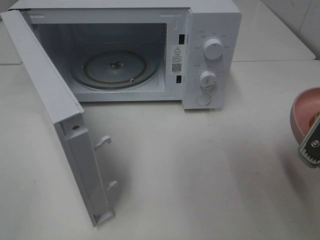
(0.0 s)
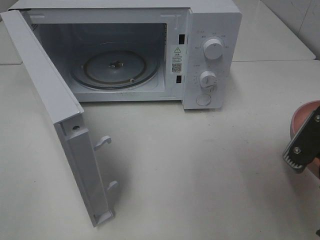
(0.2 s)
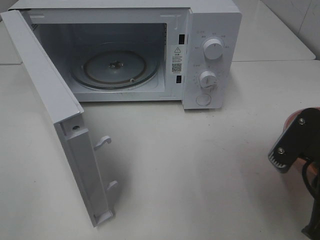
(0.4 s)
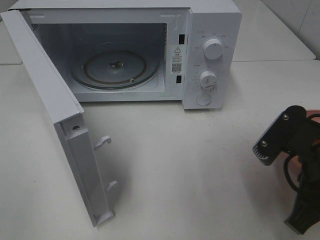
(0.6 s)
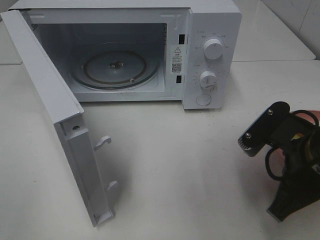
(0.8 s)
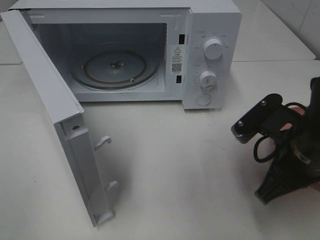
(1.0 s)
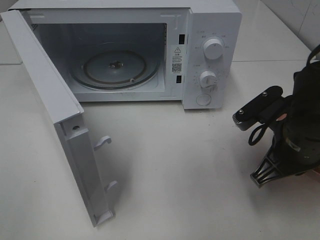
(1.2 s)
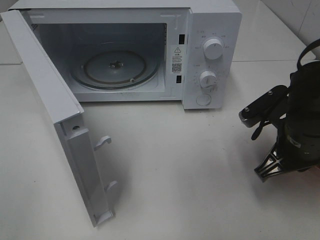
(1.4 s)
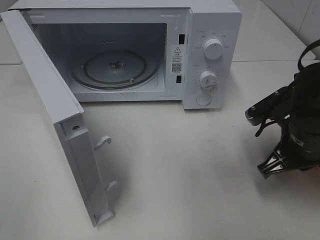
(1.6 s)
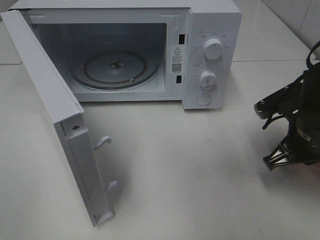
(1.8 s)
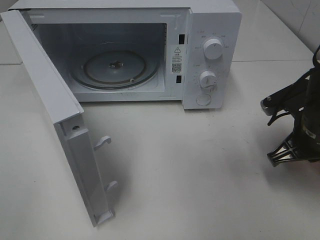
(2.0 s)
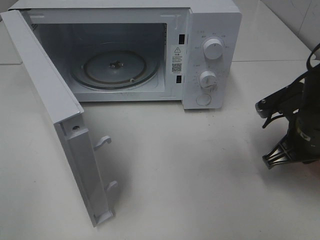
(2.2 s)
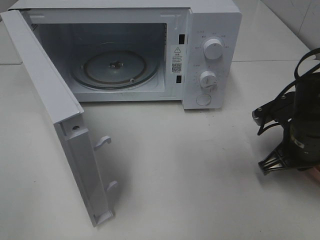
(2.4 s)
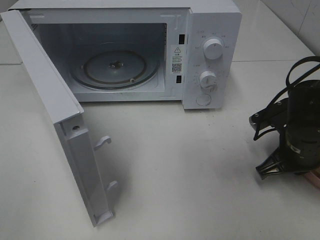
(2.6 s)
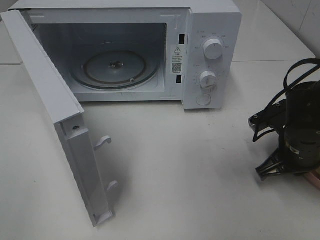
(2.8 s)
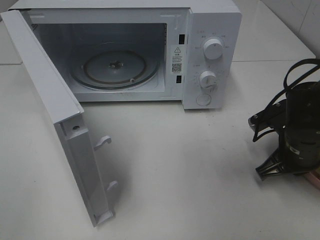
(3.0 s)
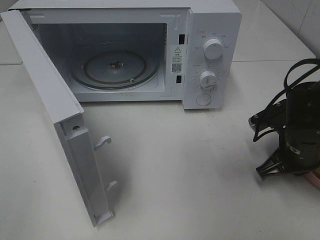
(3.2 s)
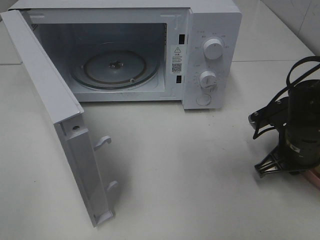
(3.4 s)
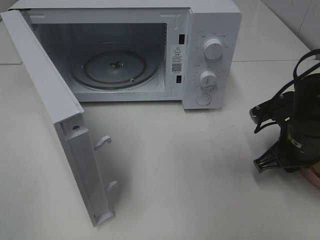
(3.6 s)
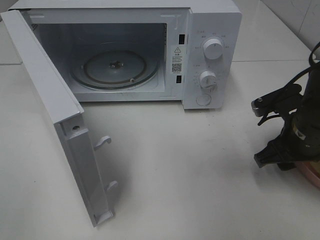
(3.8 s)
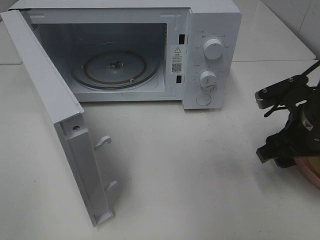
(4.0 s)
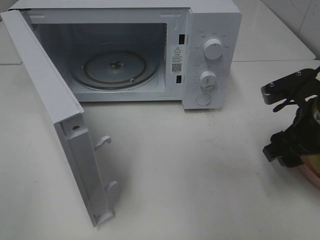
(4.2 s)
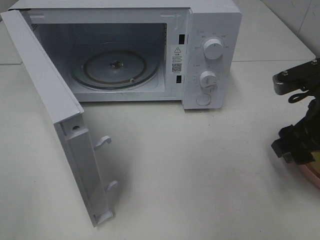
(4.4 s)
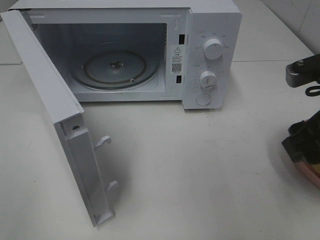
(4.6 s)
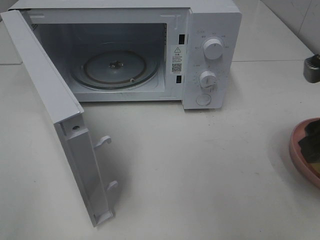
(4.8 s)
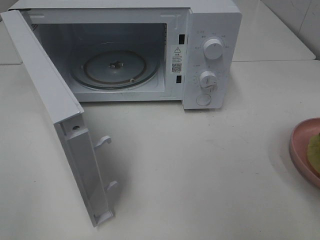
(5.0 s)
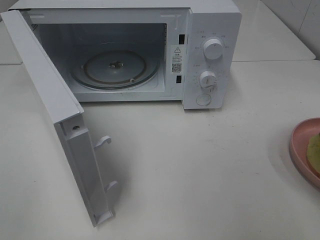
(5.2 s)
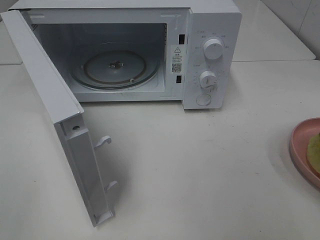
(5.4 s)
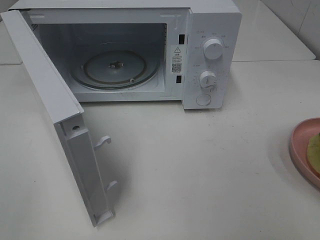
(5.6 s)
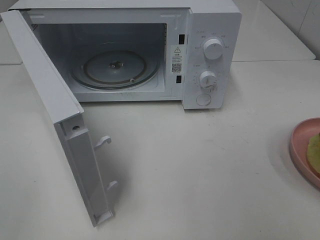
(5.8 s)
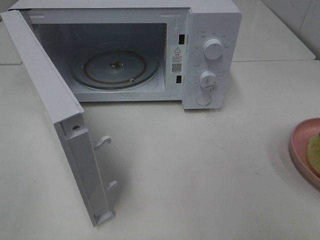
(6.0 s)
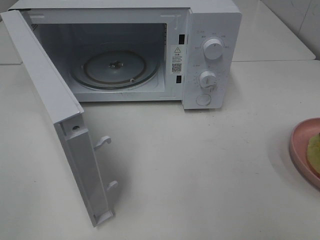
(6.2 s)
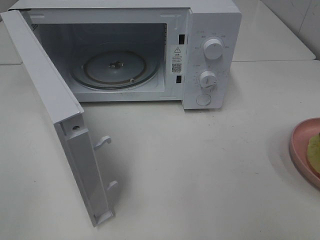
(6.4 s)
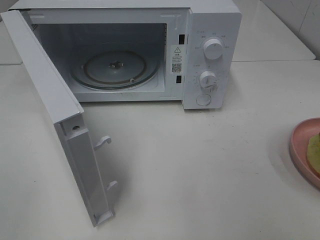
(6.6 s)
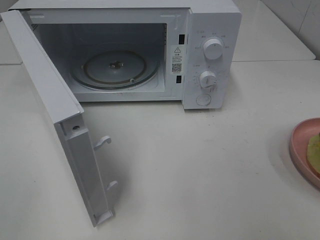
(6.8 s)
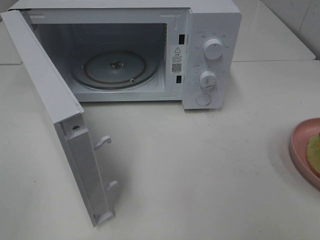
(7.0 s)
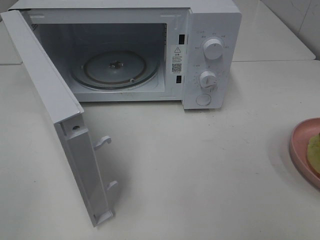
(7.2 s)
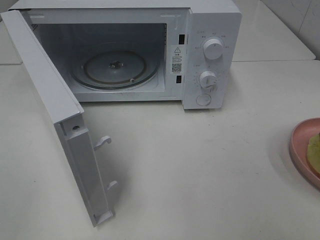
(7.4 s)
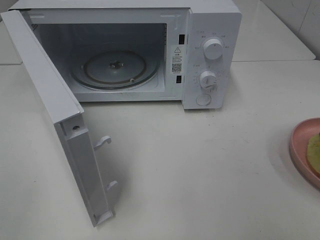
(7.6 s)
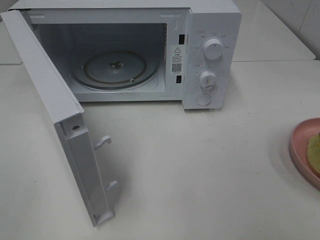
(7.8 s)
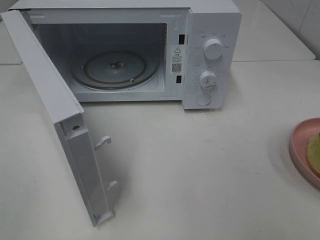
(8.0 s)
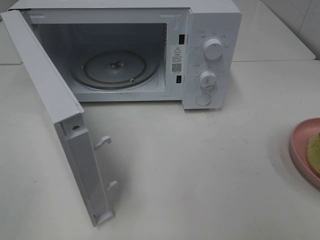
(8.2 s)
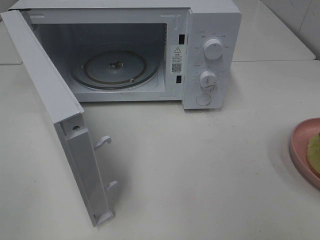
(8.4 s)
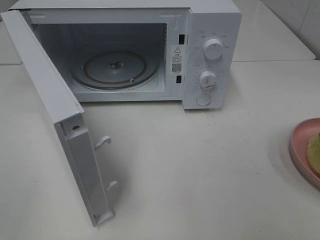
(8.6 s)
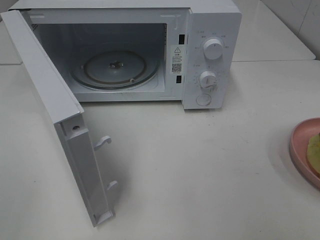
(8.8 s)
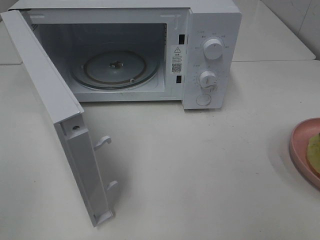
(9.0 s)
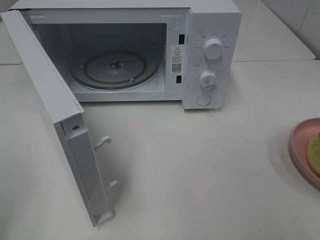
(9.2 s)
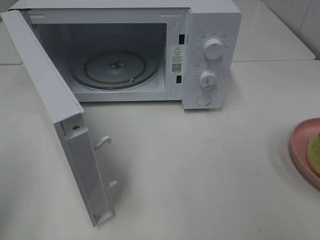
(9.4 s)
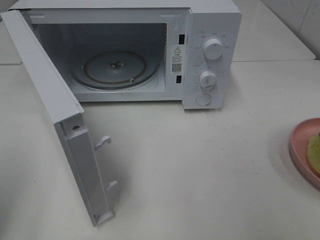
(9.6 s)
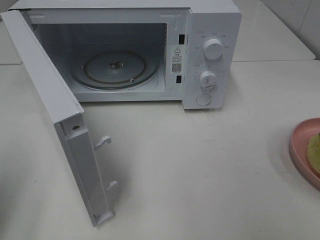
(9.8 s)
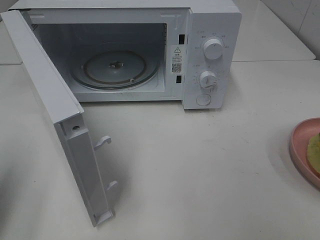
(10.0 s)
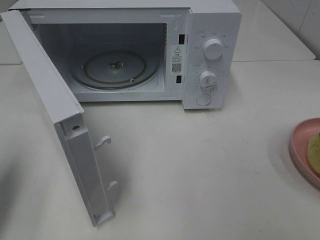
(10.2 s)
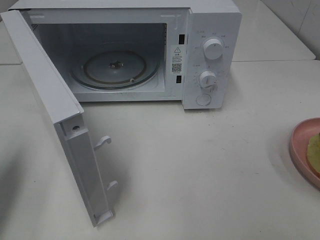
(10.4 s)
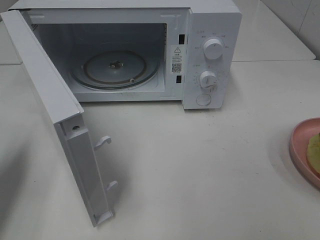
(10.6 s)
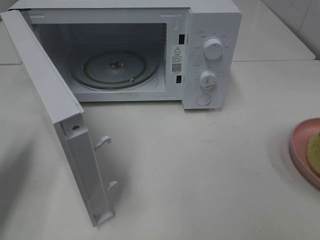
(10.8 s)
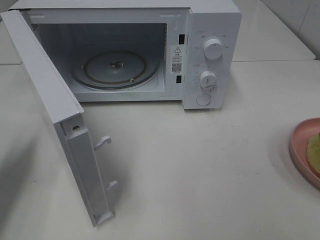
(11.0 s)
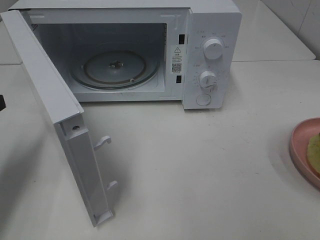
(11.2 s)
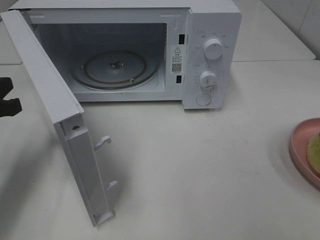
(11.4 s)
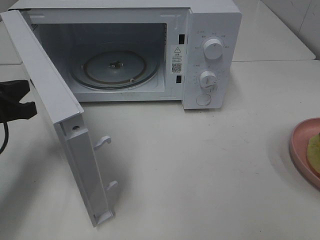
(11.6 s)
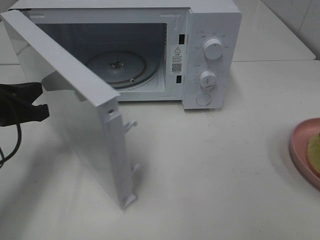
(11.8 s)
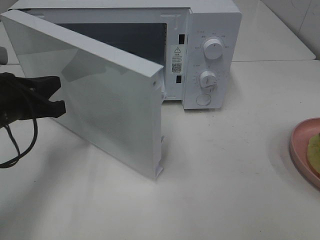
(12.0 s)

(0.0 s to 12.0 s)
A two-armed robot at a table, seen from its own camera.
Task of the whole recording: Heat Sandwich.
Step, 0.0 s - 4.6 s: Right hand: place the plate on the table.
0.0 s - 1.6 s: The right gripper heads forward and downward, covering roughly 15 cm.
1.6 s - 3.0 s: The grippers move only a little.
3.0 s - 4.4 s: The right gripper goes some 10 cm upward, and opens its fingers.
4.4 s - 6.0 s: The right gripper shifts about 20 cm backward and upward.
9.0 s - 10.4 s: The left gripper travels forward and downward by approximately 15 cm, and closes up.
10.4 s - 12.0 s: The left gripper travels to the right, forward and downward by roughly 15 cm.

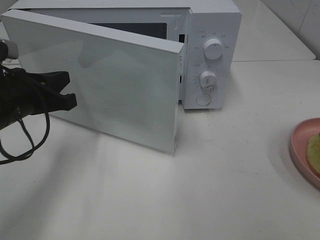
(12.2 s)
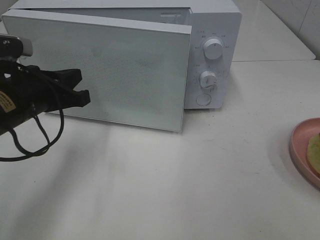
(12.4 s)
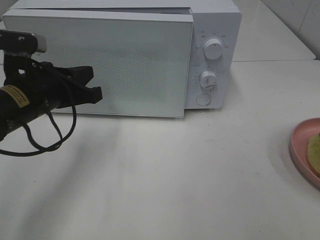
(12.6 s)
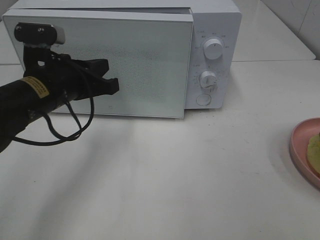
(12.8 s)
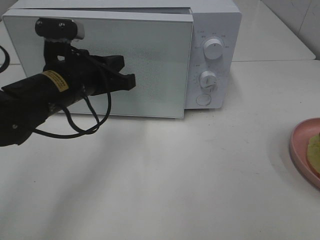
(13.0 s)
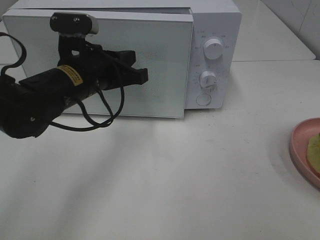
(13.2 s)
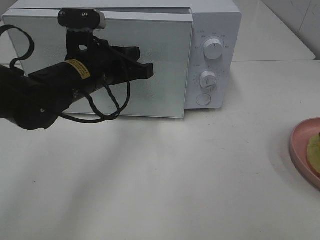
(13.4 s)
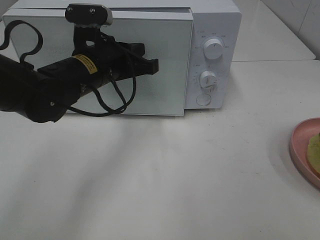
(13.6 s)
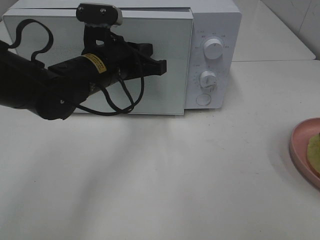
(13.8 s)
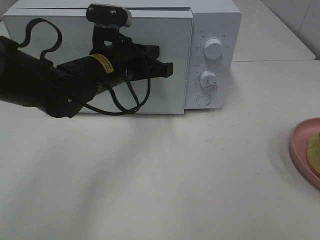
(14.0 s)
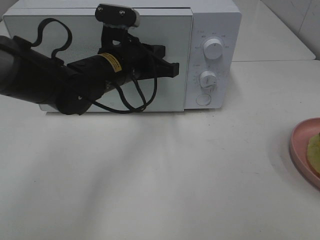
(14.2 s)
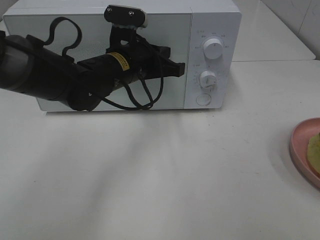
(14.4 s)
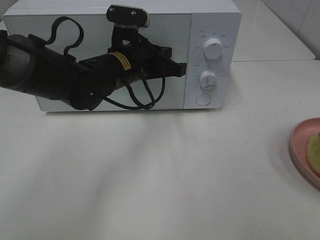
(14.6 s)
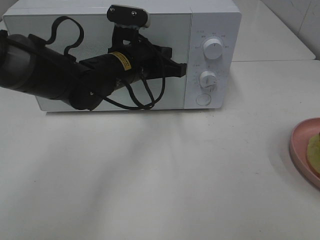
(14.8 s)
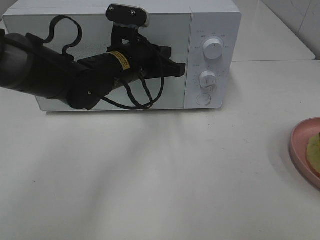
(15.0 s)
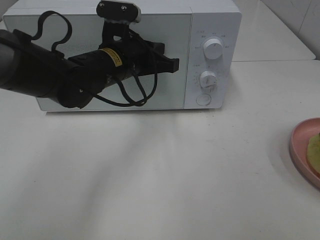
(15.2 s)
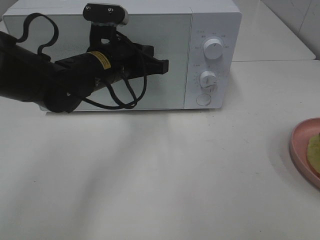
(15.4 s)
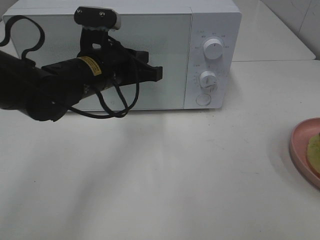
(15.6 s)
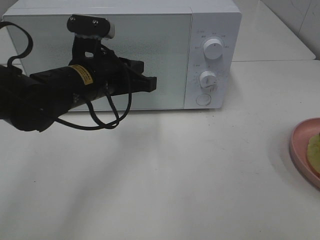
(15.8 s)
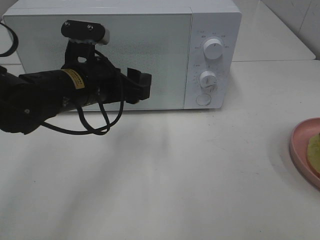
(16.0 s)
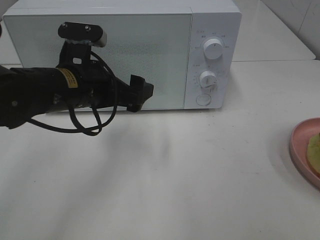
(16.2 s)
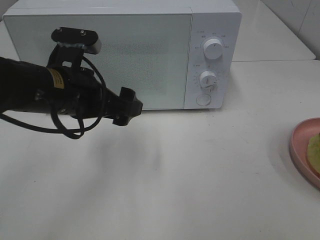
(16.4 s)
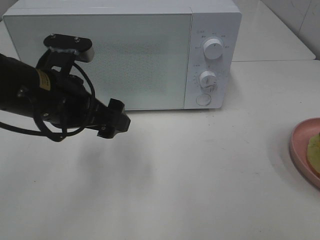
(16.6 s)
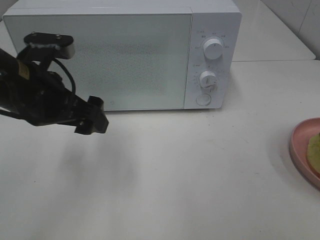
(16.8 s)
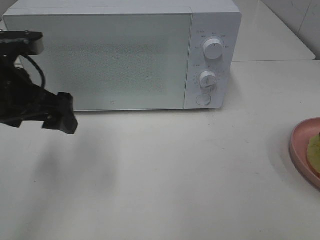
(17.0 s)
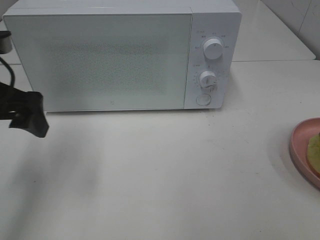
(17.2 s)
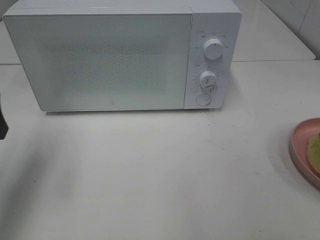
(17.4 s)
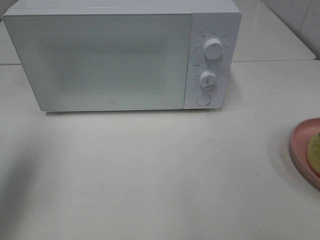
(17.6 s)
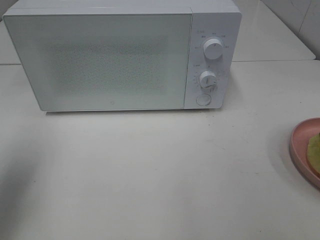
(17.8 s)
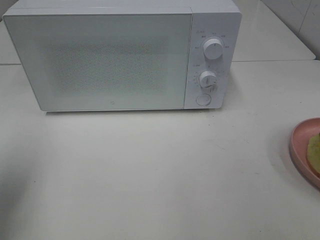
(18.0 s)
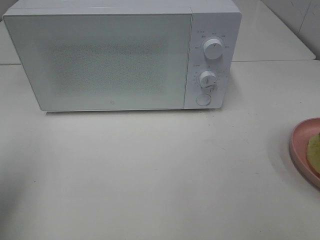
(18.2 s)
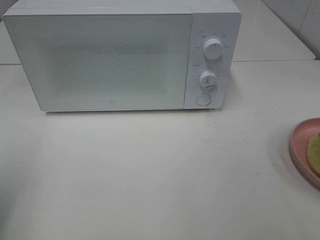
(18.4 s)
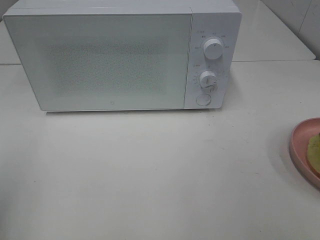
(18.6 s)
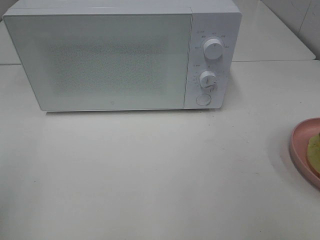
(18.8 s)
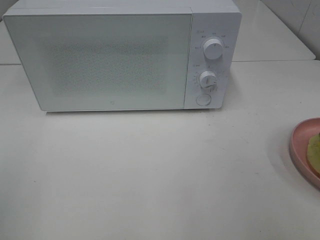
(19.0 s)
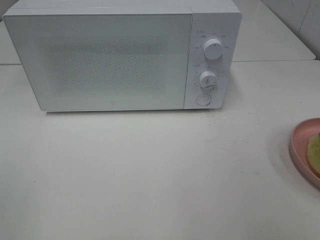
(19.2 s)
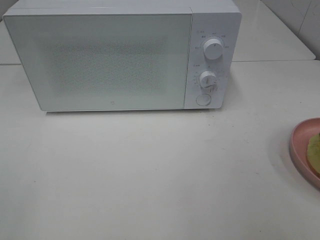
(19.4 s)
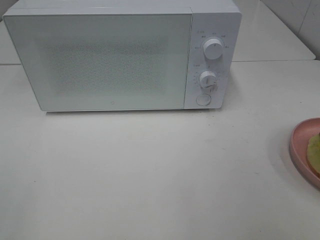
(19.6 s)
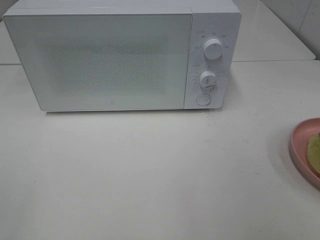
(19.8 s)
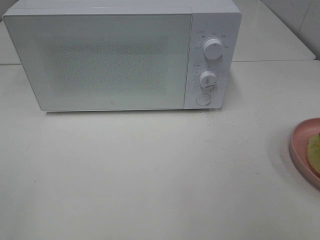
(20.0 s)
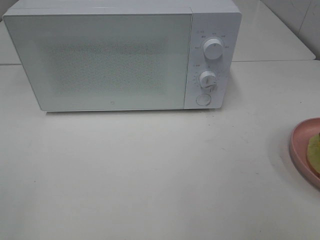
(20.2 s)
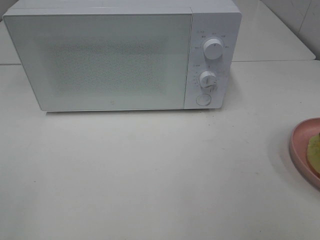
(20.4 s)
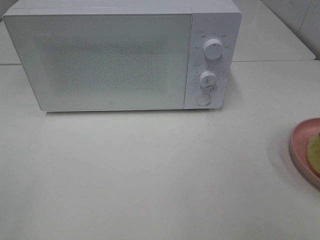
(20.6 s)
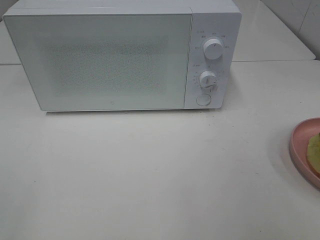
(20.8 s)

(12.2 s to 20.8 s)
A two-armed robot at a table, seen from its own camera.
Task of the whole recording: Heat Sandwich.
Step, 12.2 s - 15.0 s: Left hand: close the microwave door.
12.2 s - 13.6 s: The left gripper moves to the right and forward, some 15 cm.
13.6 s - 15.0 s: The grippers stay close to where they were, moving slightly.
15.0 s - 16.6 s: The left gripper shifts about 15 cm backward and to the left, and opens up.
16.6 s - 18.0 s: The left gripper travels to the left and backward by roughly 20 cm.
18.0 s - 19.4 s: The left gripper moves backward, approximately 15 cm.
19.4 s - 20.8 s: Neither gripper changes place.

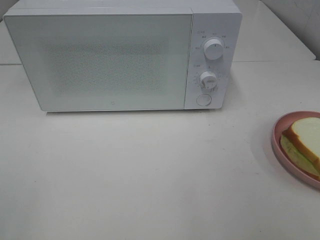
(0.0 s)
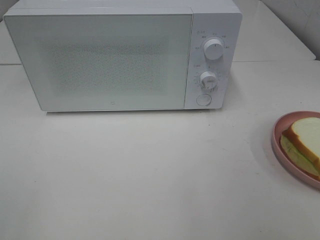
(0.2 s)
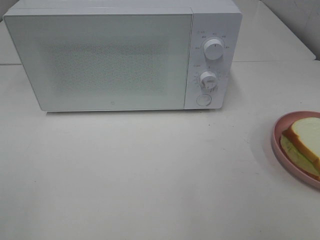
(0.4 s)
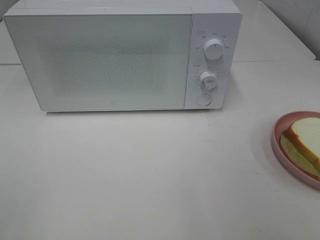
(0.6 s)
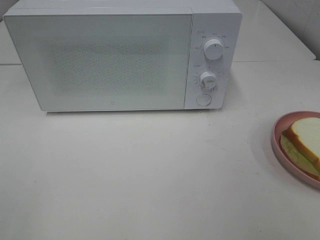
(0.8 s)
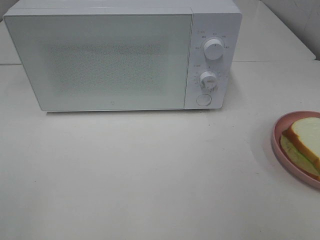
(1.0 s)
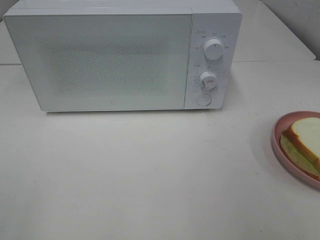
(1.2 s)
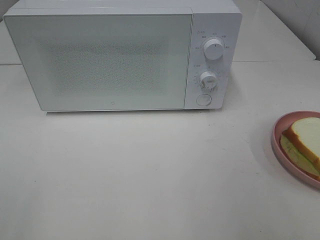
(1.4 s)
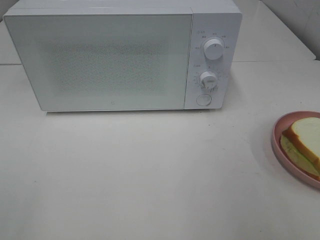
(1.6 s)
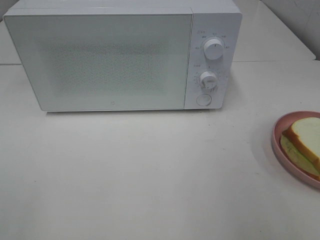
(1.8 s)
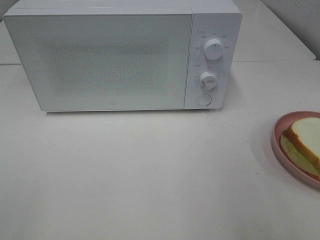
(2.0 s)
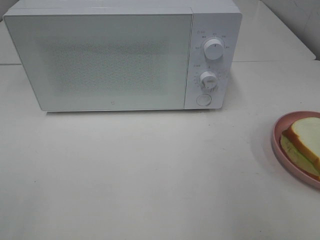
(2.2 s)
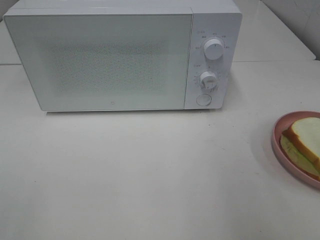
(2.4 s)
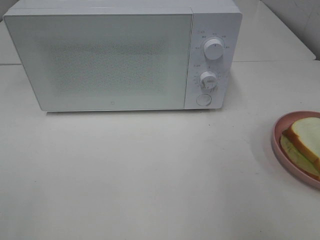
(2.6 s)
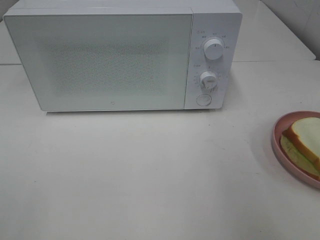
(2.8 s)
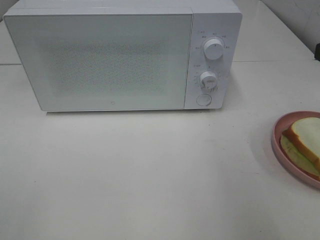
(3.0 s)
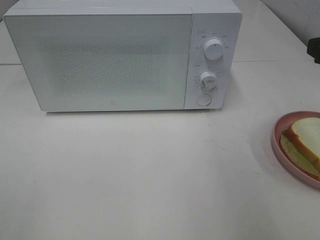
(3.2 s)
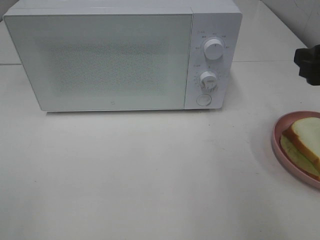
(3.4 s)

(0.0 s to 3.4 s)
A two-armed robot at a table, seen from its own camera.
Task of the whole recording: Heat Sandwich.
1.6 s - 3.4 s: The right gripper heads forward and downward, covering roughly 15 cm.
